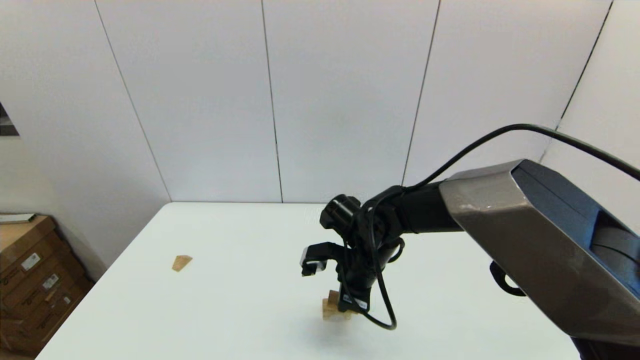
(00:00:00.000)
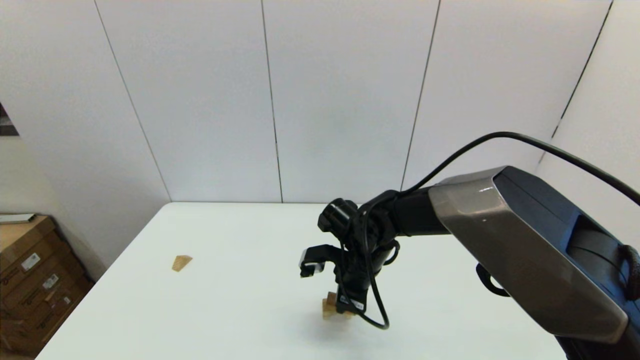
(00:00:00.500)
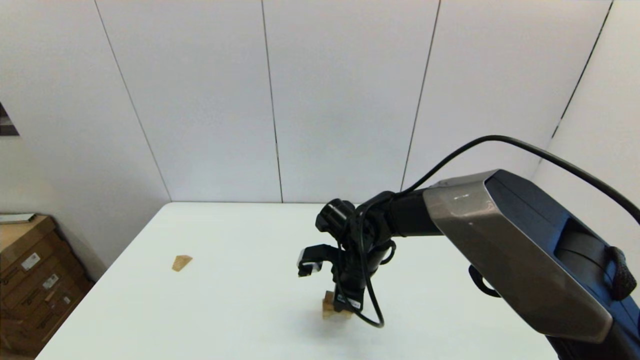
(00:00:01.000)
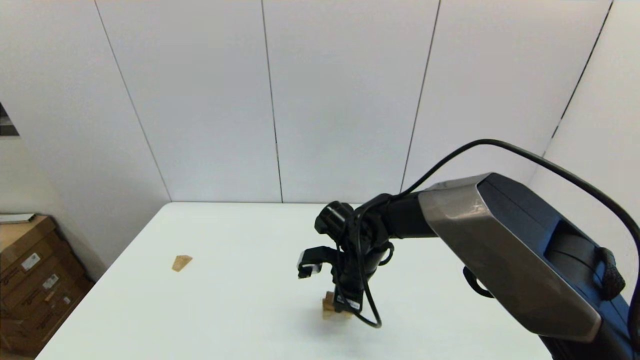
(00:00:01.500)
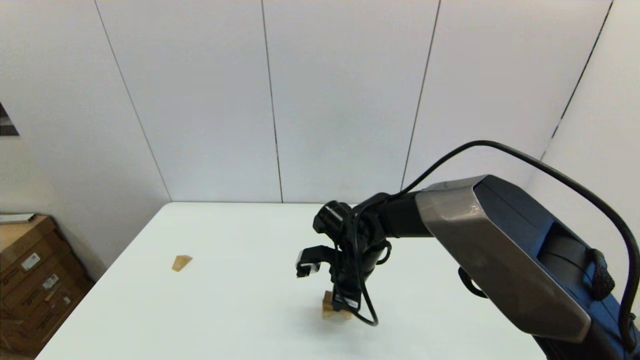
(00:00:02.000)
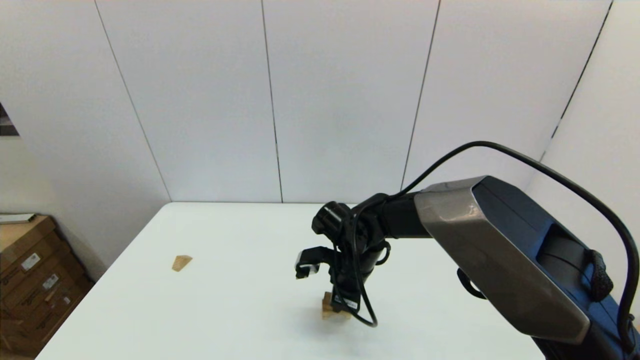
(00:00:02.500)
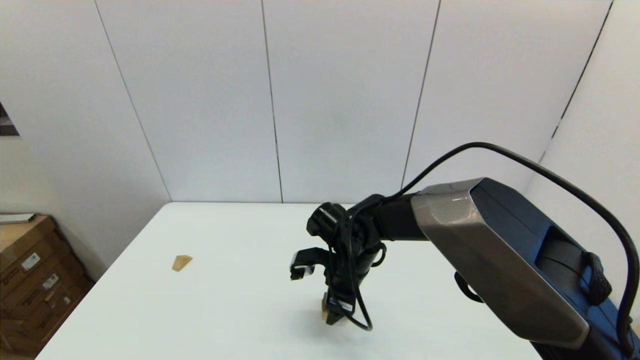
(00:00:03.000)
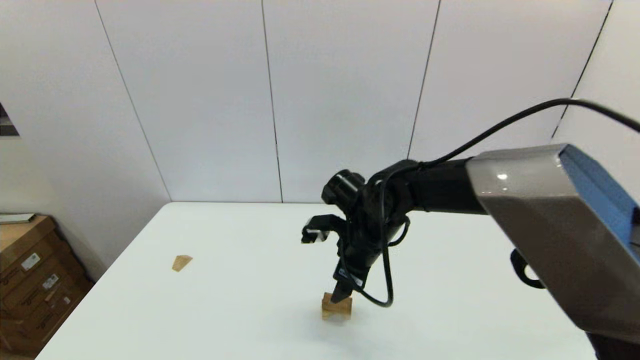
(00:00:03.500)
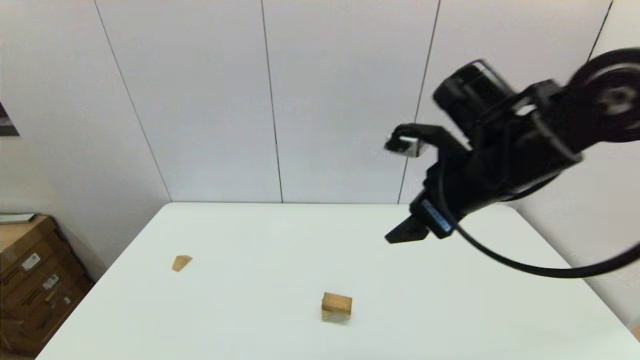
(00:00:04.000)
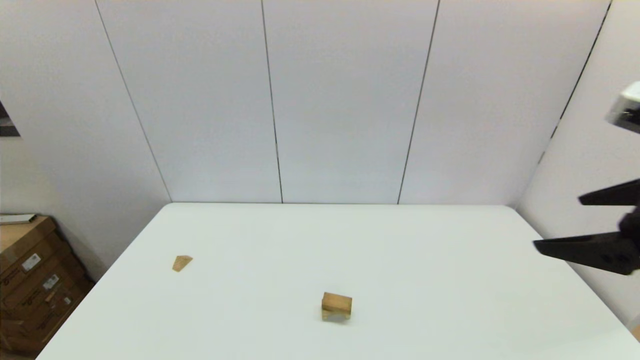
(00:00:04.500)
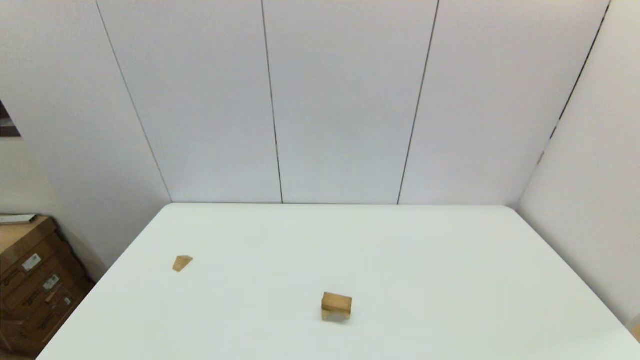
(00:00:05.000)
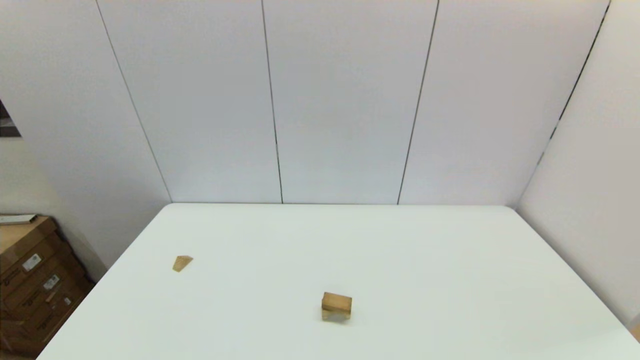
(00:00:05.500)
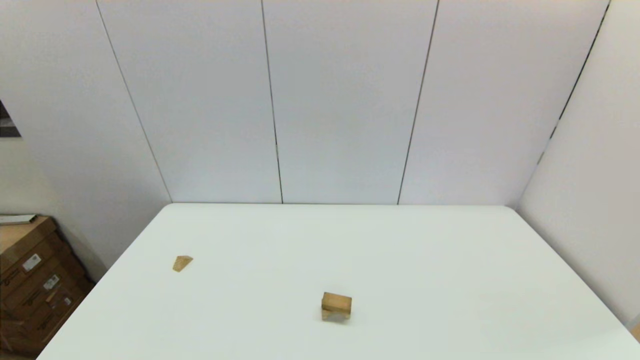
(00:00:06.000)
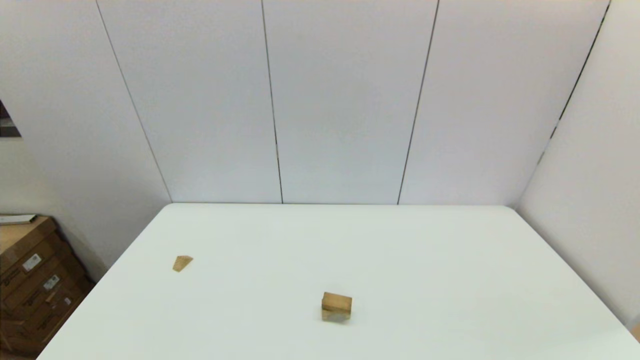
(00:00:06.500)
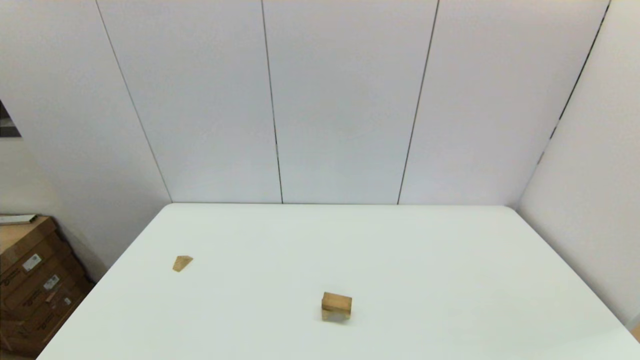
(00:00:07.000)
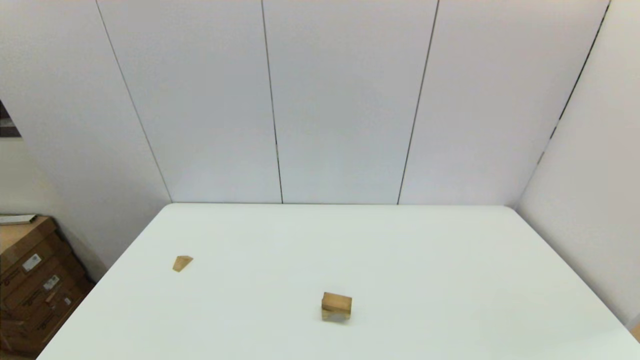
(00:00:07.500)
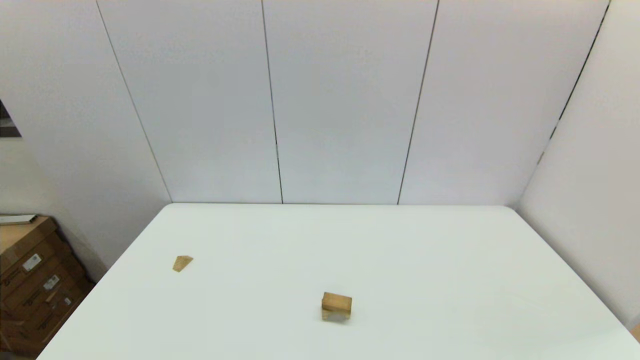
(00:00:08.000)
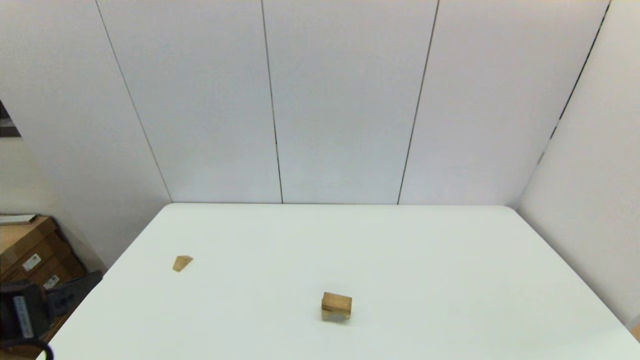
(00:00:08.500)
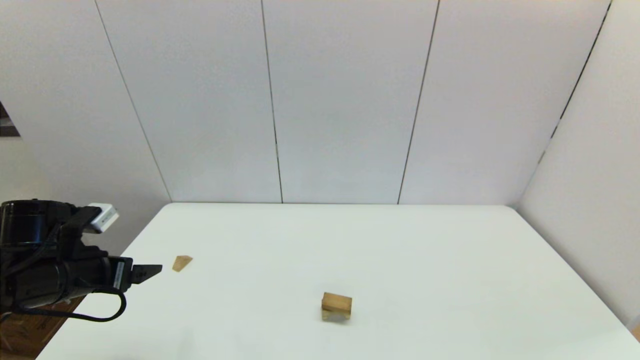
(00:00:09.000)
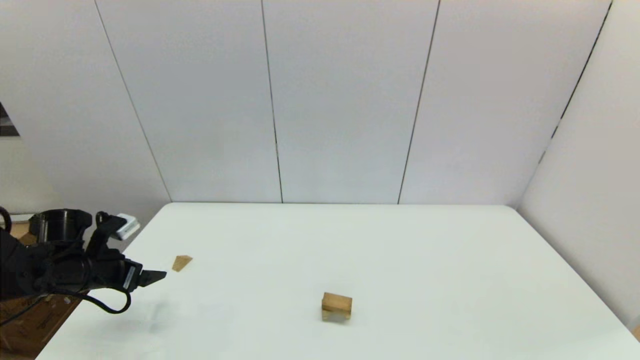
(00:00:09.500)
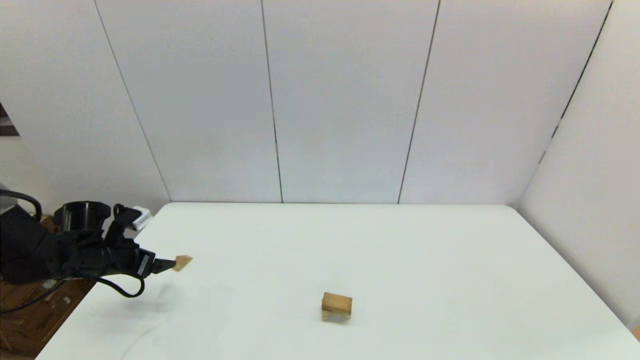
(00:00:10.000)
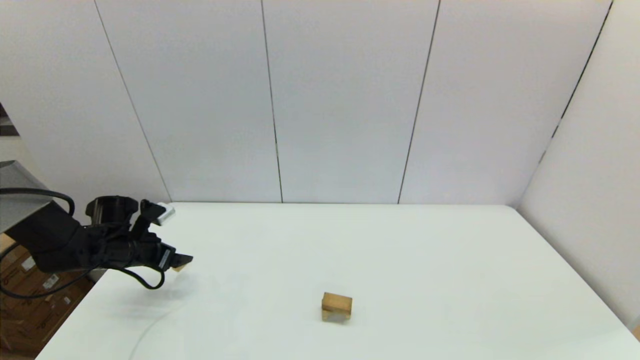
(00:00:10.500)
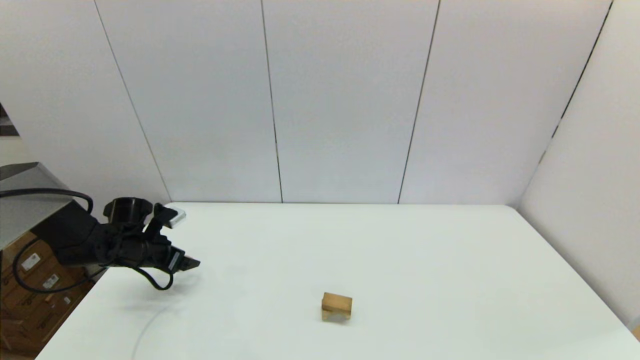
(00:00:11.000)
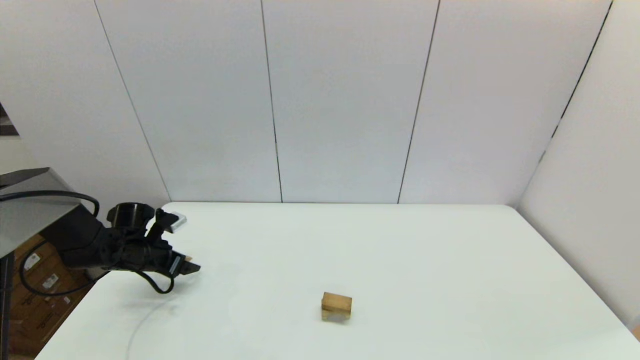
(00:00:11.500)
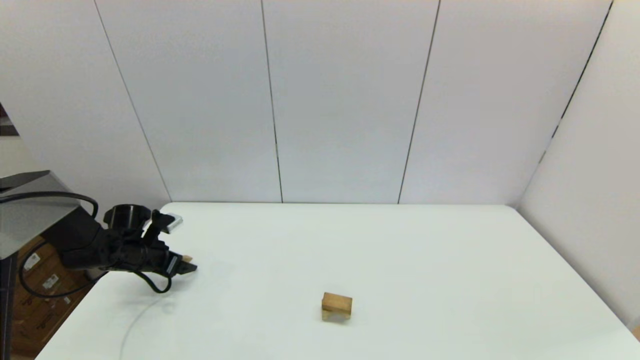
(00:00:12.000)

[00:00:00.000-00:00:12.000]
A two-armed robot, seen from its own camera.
Task of the whole recording: place the arched building blocks in the center of the table, set up the rectangular building blocks, and then set up the triangular building blocks.
Step, 00:00:00.000 to 00:00:02.500: Place the box-shaped block onto the arch-shaped block with the right gripper.
00:00:00.000 to 00:00:02.000: There are only small adjustments of the grippers.
00:00:02.000 to 00:00:04.000: The right gripper goes some 25 cm upward and to the right, and opens.
00:00:04.000 to 00:00:06.000: The right gripper moves backward, downward and to the right, about 40 cm.
00:00:08.000 to 00:00:10.000: The left gripper shifts approximately 35 cm forward.
00:00:10.000 to 00:00:12.000: The left gripper ends up approximately 5 cm from where it was.

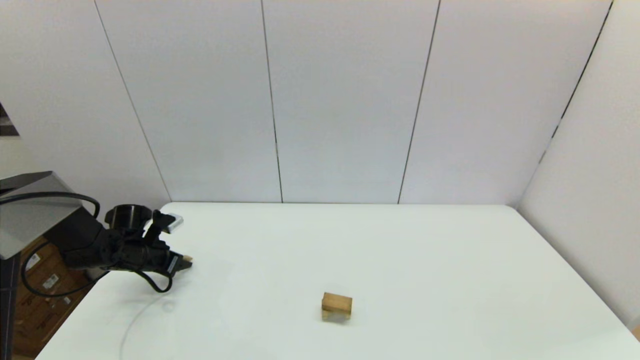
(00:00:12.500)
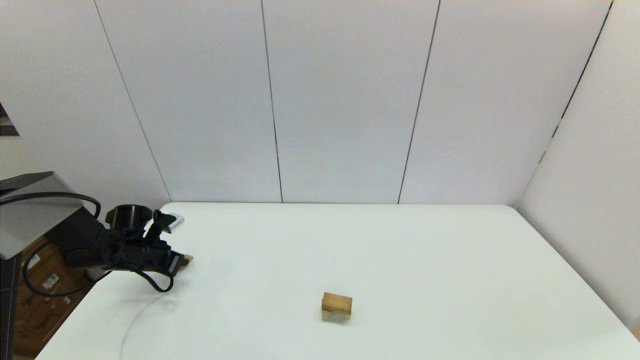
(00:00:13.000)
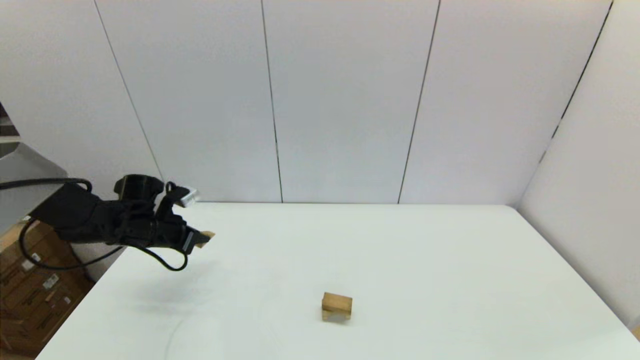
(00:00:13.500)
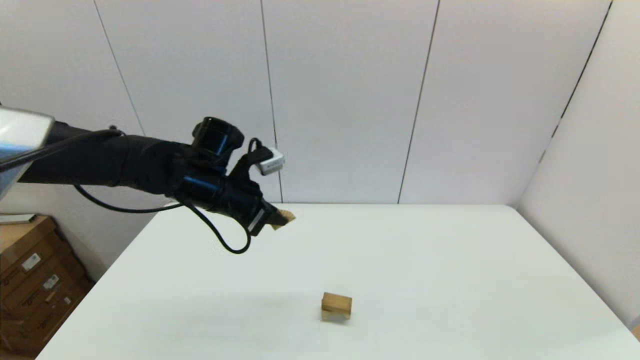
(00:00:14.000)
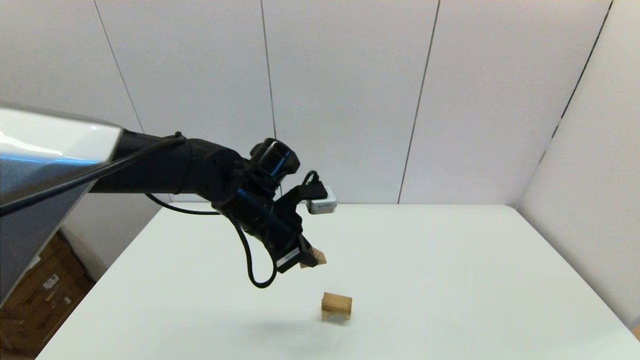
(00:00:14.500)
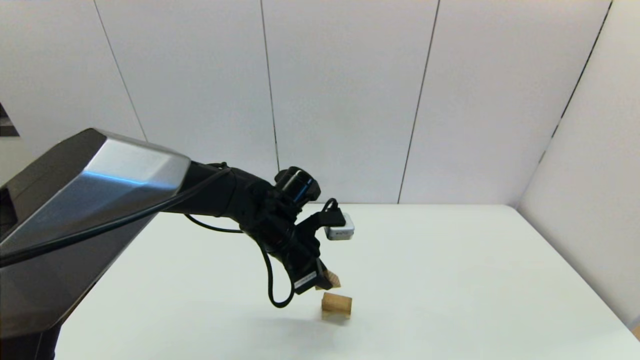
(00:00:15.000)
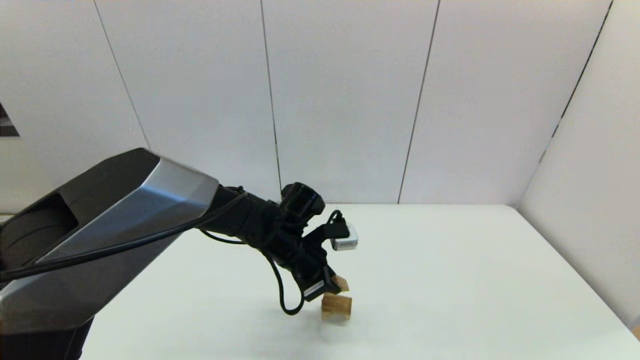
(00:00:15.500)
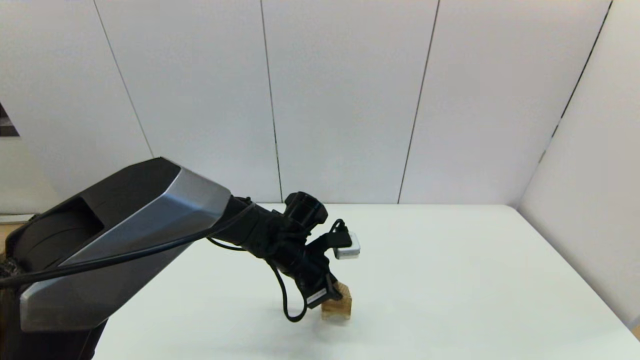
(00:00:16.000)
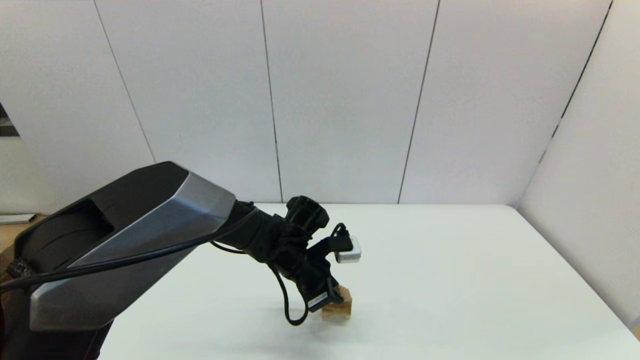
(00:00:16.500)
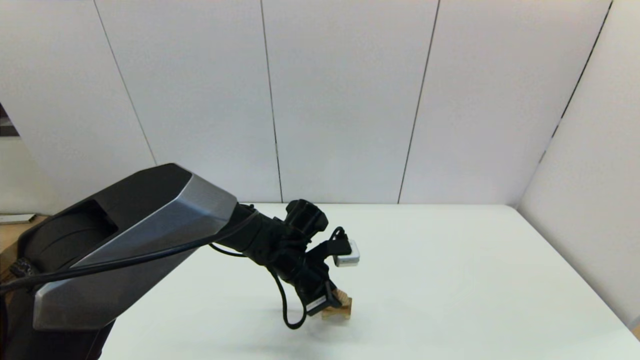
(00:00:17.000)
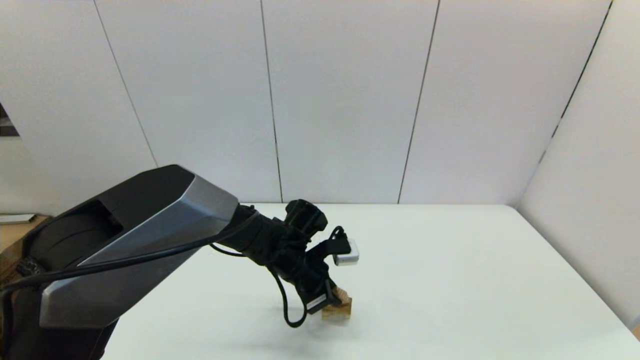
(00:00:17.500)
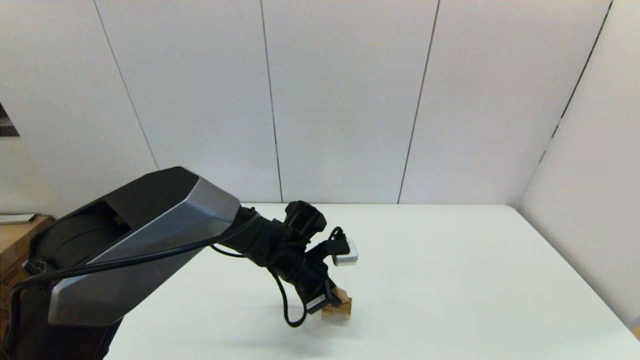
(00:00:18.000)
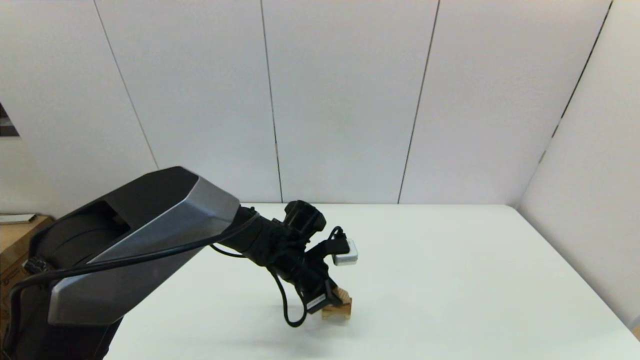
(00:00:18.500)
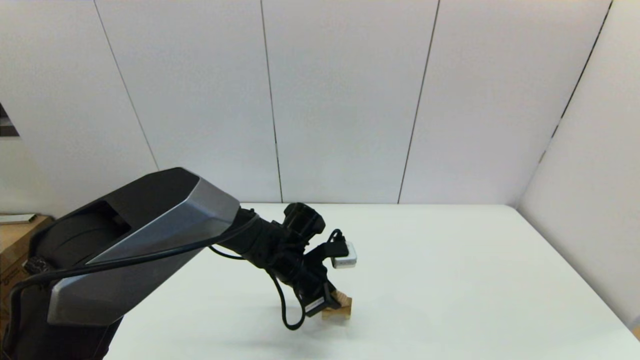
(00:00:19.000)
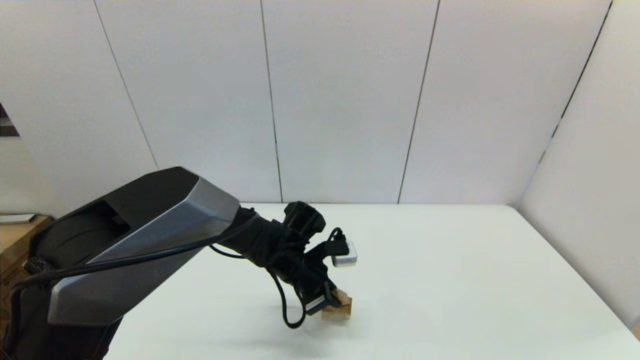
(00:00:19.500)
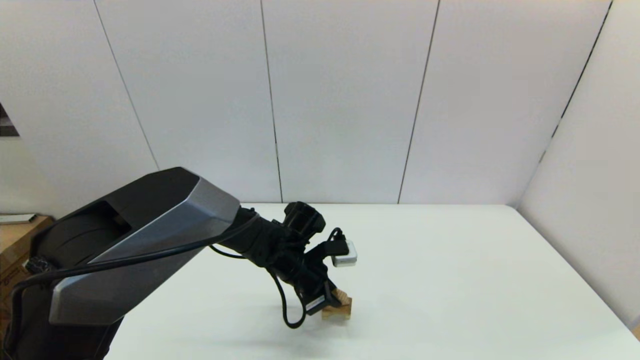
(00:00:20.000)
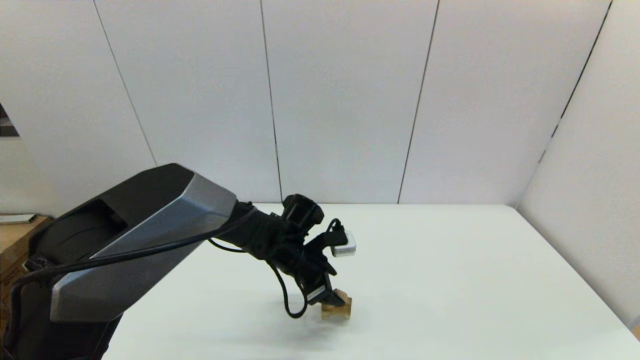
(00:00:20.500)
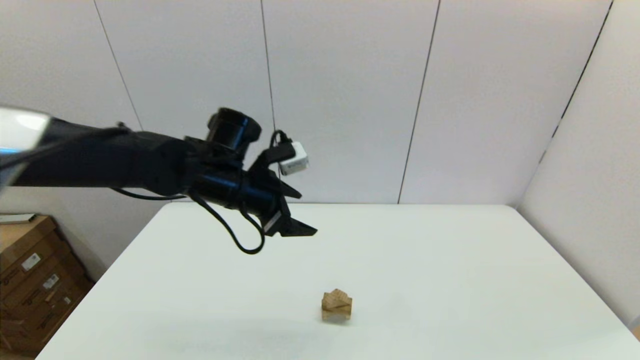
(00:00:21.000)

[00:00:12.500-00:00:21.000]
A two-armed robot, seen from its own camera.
Task of the whole recording: place the arched building blocks in the center of the table, set up the rectangular building blocks, and then set up the triangular building blocks.
00:00:12.500 to 00:00:14.500: The left gripper goes approximately 35 cm to the right and upward, and closes up.
00:00:14.500 to 00:00:16.500: The left gripper travels downward by roughly 10 cm.
00:00:16.500 to 00:00:19.000: The grippers move only a little.
00:00:19.000 to 00:00:21.000: The left gripper shifts some 20 cm upward and to the left, and opens up.
